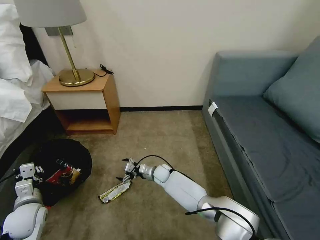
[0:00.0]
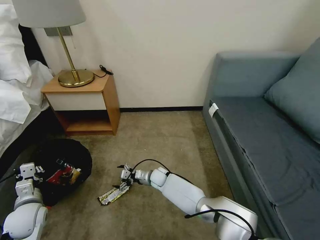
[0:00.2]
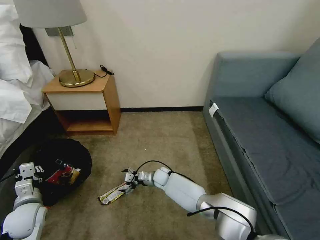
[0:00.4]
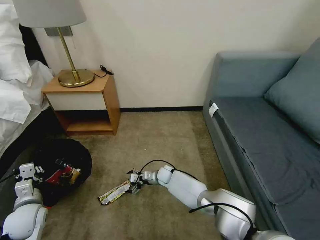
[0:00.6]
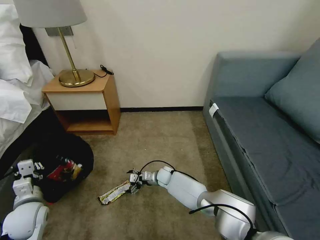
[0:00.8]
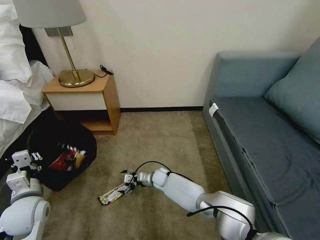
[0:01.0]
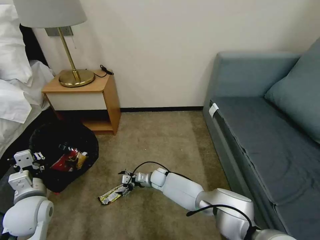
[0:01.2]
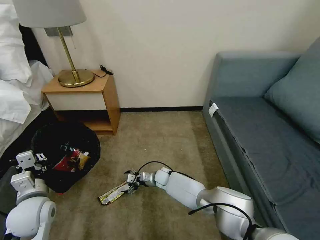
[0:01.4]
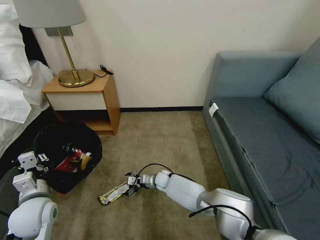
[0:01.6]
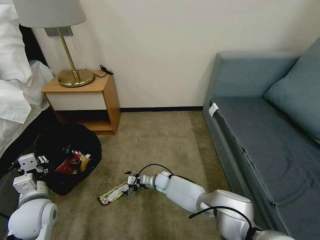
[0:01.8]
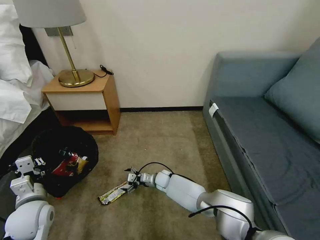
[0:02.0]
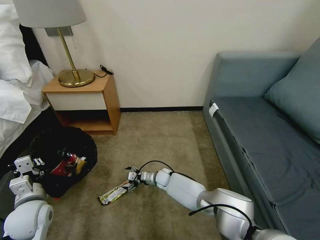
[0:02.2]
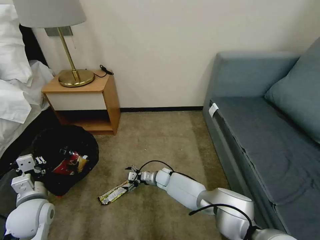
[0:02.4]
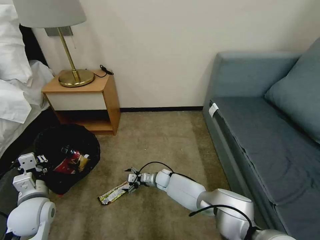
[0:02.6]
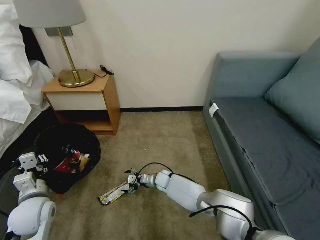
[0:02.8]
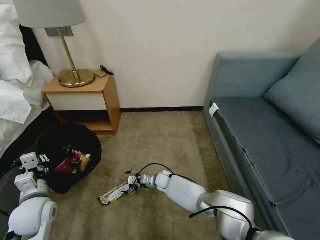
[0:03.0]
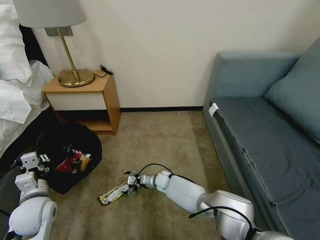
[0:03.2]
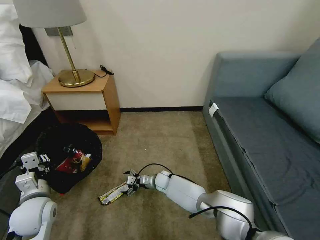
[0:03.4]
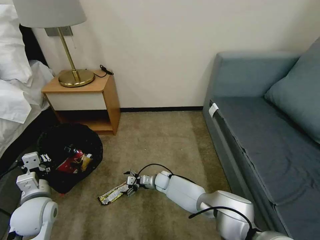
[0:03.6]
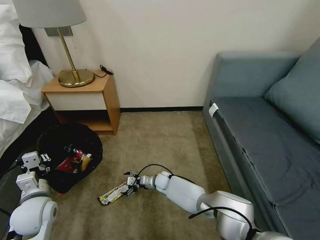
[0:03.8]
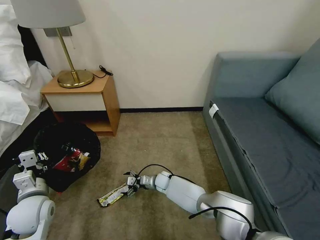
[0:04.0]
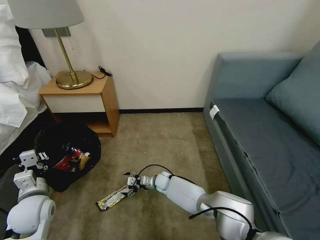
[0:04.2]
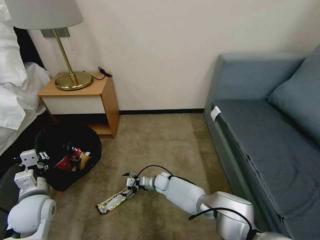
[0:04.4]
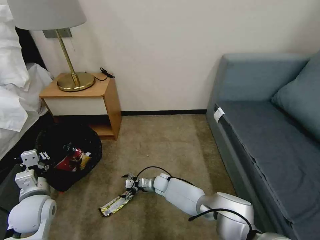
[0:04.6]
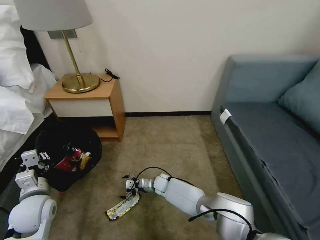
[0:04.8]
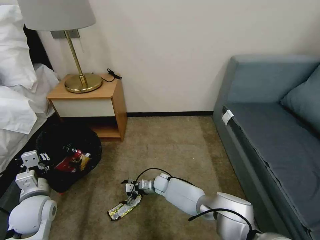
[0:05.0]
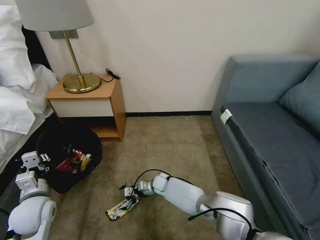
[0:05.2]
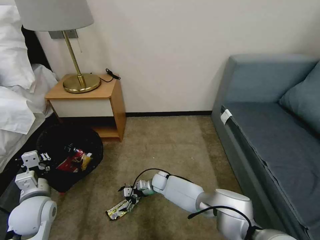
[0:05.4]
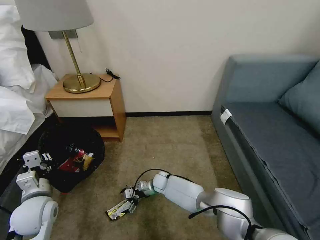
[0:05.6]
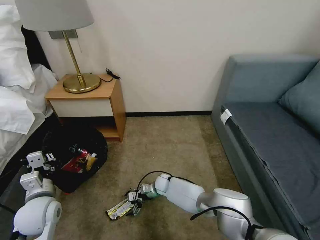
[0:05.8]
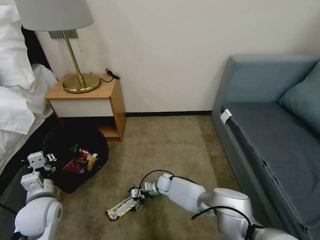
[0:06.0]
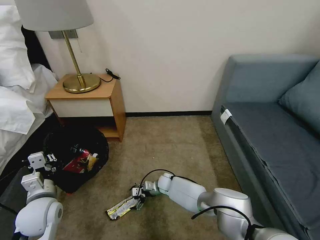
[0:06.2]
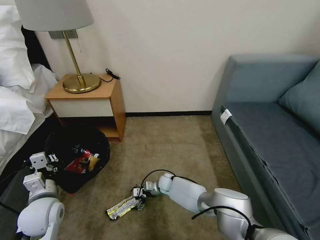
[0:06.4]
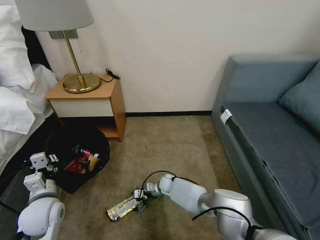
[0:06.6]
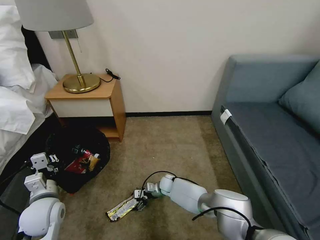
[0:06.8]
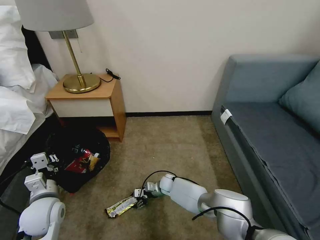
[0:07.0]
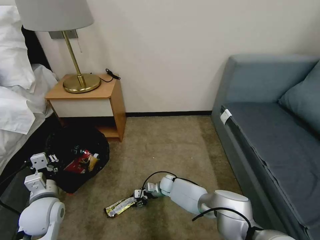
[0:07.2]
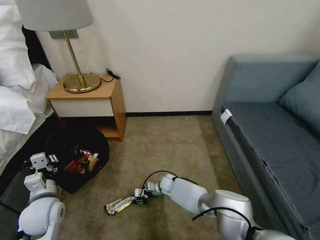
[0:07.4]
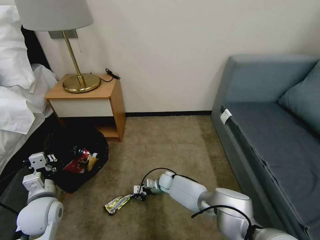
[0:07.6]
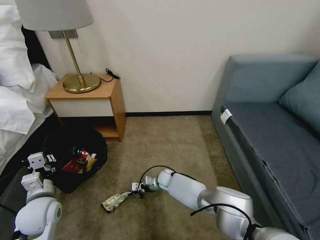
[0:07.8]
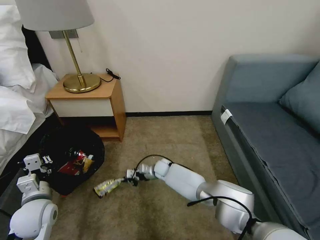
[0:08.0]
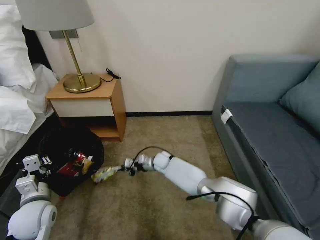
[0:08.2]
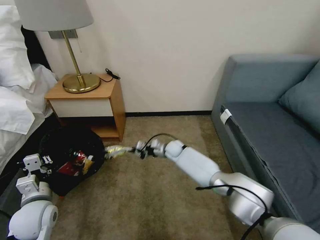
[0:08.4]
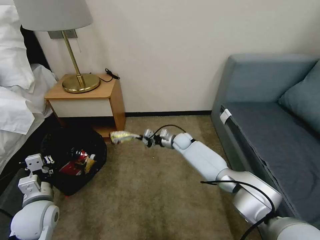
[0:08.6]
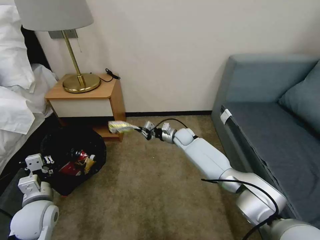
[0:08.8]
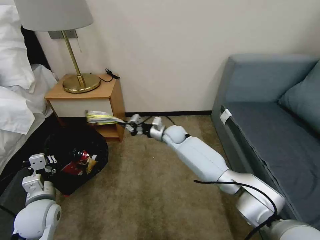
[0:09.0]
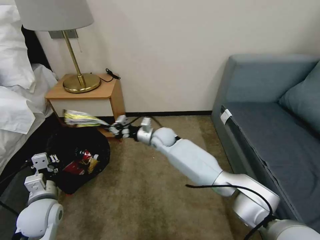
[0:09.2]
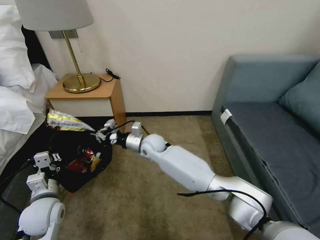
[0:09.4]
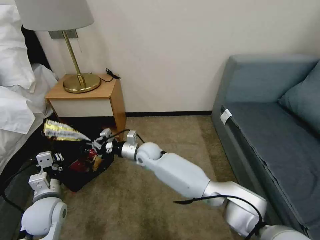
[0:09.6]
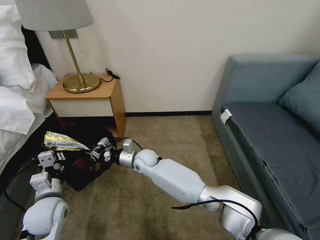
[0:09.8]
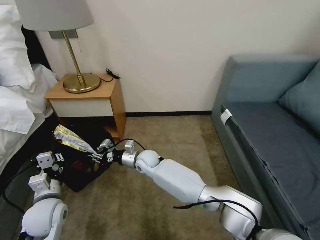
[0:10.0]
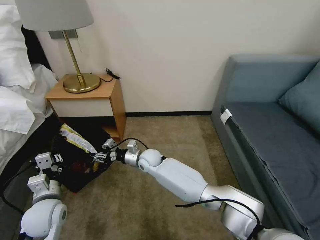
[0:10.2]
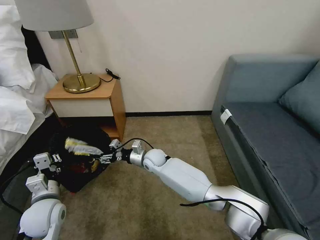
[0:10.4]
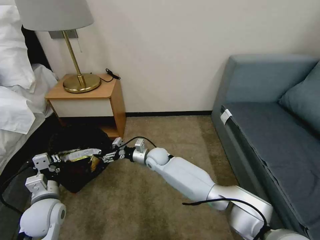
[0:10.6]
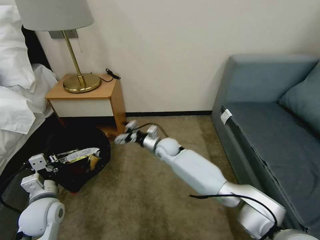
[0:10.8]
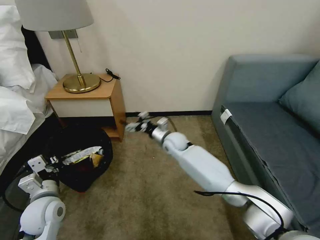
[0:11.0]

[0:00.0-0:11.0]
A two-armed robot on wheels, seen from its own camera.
Task of the whole recording: Pick up the trash bin, then pick up the garbage on the floor and place it into the trash bin.
0:00.0 to 0:01.6: The left gripper travels upward and to the right by approximately 10 cm.
0:01.6 to 0:03.2: There are only small adjustments of the grippers.
0:06.2 to 0:07.8: The right gripper closes its fingers.
0:07.8 to 0:09.4: The right gripper heads upward, covering about 20 cm.
0:09.4 to 0:11.0: The right gripper shifts some 10 cm to the right, and opens.

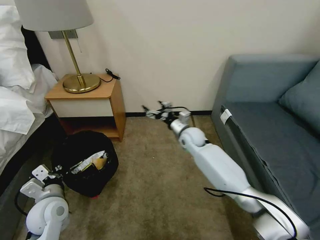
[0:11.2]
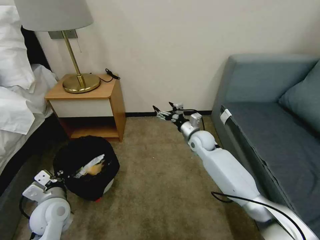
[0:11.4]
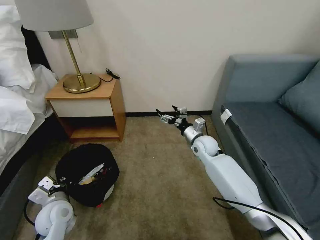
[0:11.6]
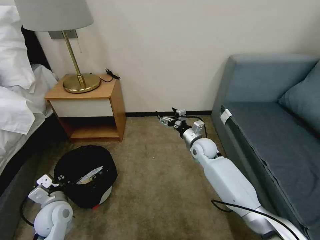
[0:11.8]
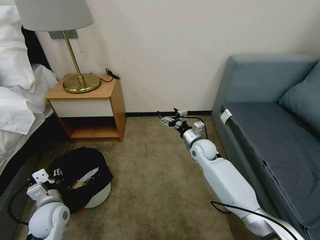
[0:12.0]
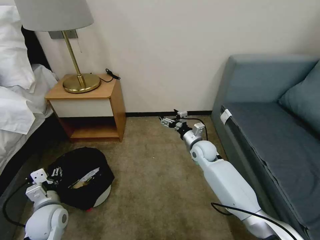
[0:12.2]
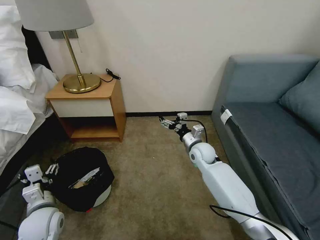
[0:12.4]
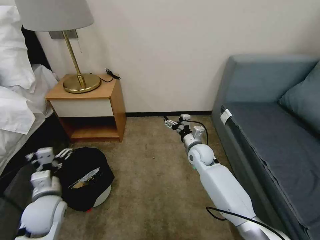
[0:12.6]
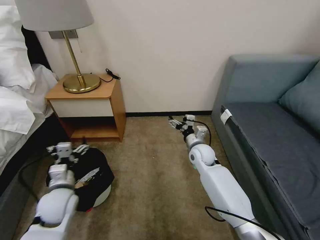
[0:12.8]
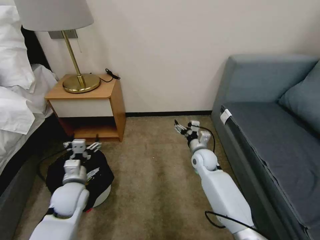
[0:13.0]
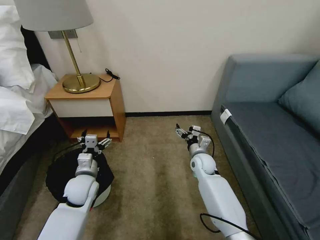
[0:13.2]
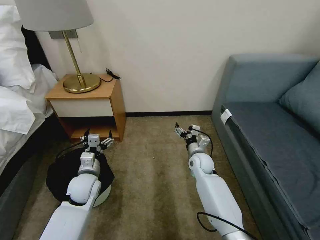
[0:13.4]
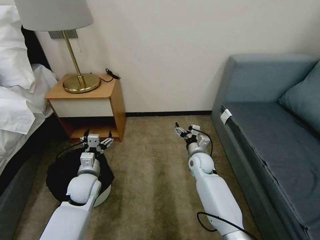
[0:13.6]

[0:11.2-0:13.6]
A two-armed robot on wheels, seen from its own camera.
Task of the whole recording: Pick up the trash bin, then pick up the garbage on the floor and place it into the trash bin.
0:11.2 to 0:12.4: The left gripper opens its fingers; the right gripper shifts by approximately 5 cm.
0:12.4 to 0:13.6: The left gripper is displaced forward and to the right by about 15 cm.
